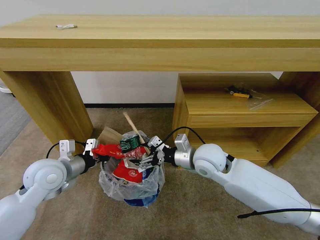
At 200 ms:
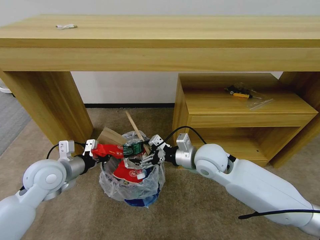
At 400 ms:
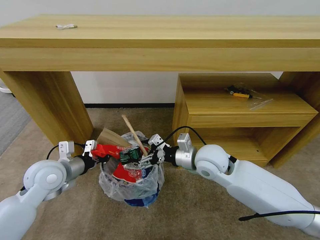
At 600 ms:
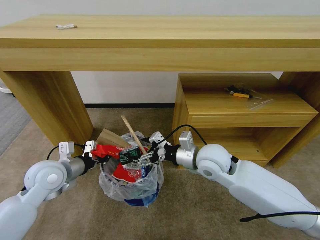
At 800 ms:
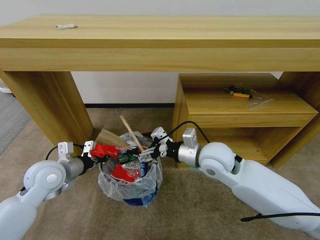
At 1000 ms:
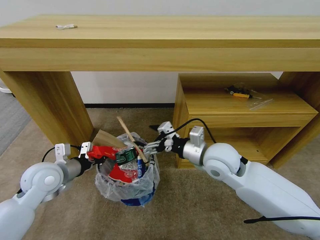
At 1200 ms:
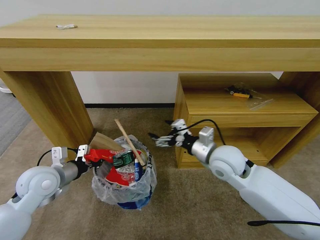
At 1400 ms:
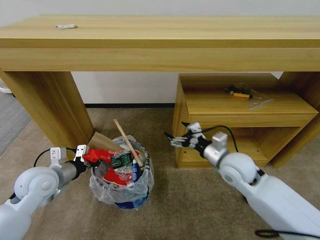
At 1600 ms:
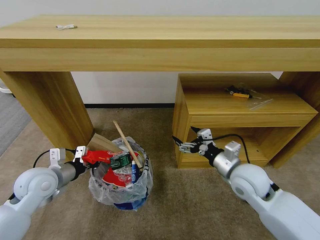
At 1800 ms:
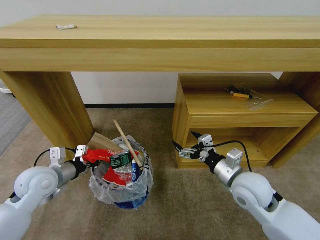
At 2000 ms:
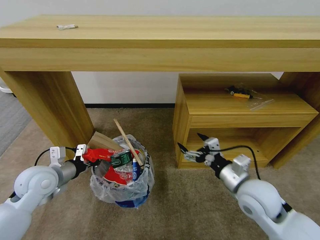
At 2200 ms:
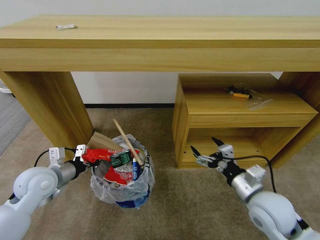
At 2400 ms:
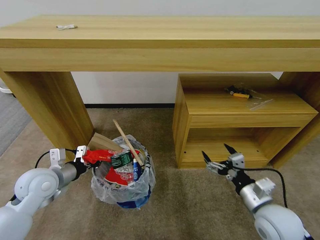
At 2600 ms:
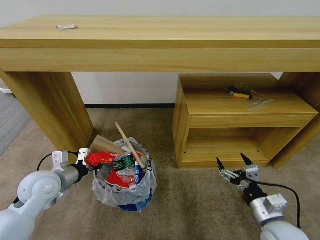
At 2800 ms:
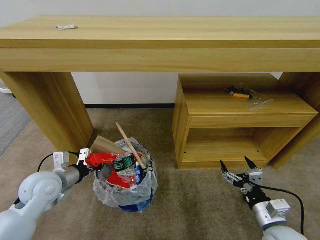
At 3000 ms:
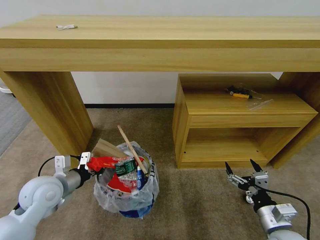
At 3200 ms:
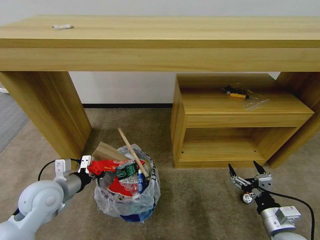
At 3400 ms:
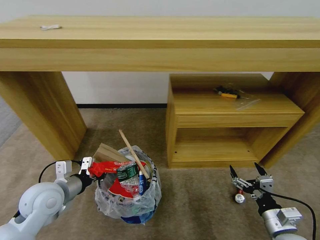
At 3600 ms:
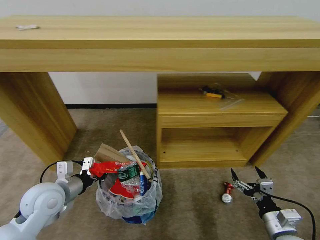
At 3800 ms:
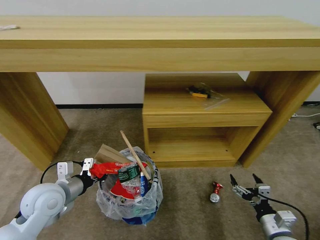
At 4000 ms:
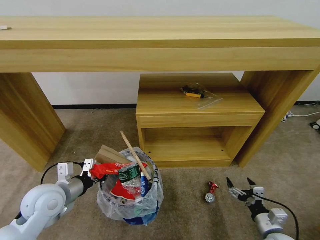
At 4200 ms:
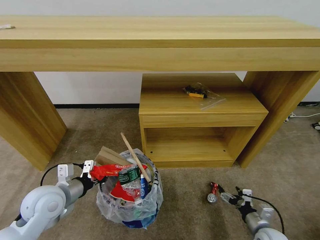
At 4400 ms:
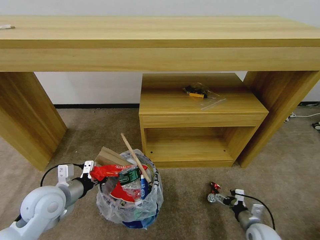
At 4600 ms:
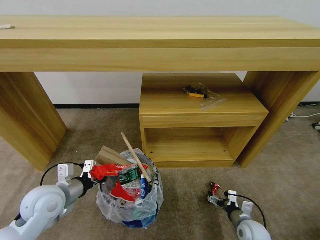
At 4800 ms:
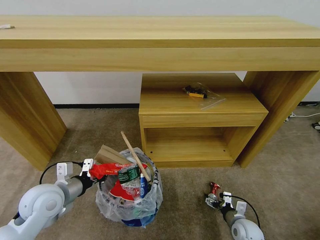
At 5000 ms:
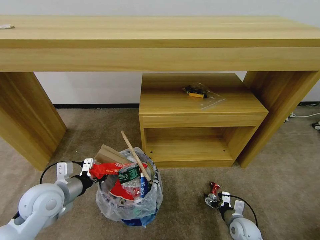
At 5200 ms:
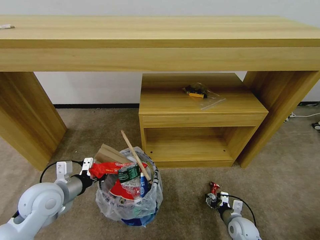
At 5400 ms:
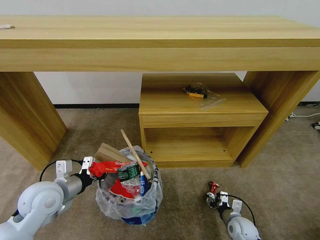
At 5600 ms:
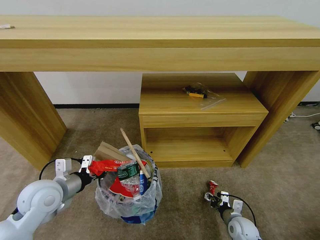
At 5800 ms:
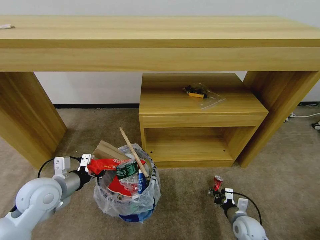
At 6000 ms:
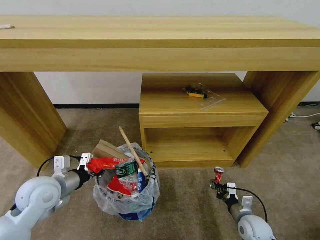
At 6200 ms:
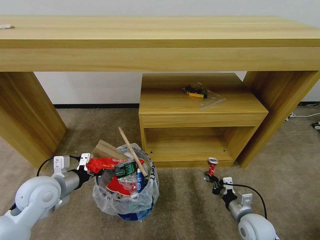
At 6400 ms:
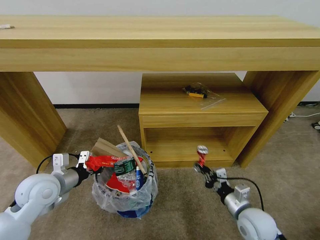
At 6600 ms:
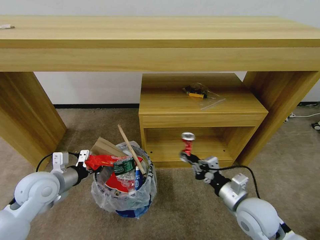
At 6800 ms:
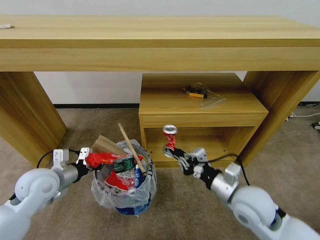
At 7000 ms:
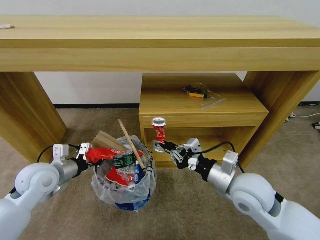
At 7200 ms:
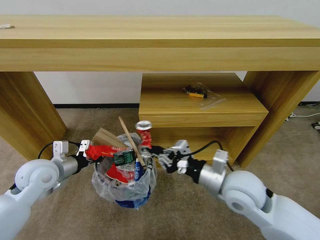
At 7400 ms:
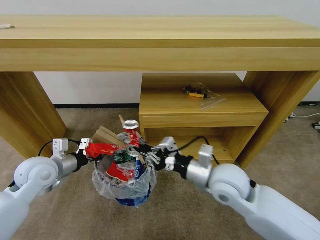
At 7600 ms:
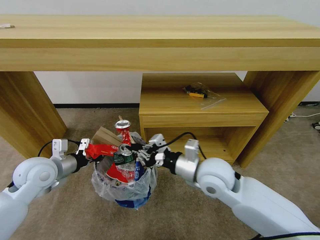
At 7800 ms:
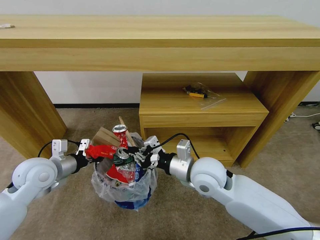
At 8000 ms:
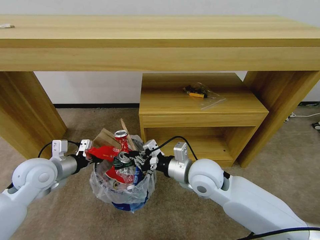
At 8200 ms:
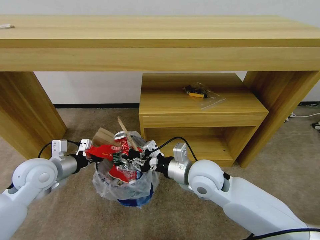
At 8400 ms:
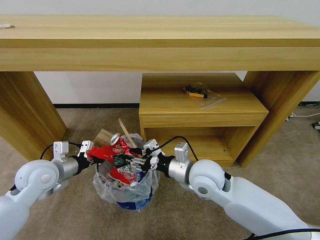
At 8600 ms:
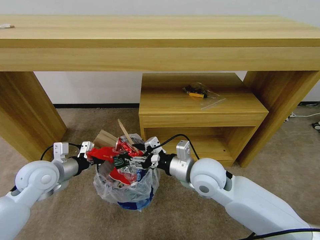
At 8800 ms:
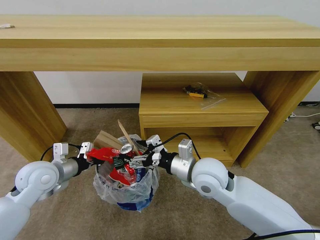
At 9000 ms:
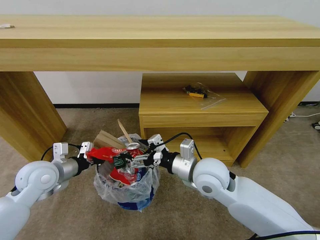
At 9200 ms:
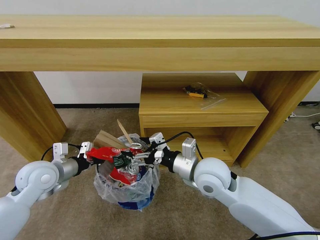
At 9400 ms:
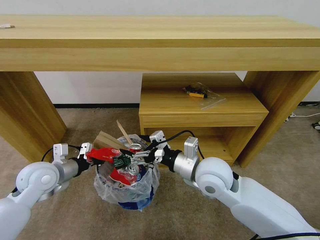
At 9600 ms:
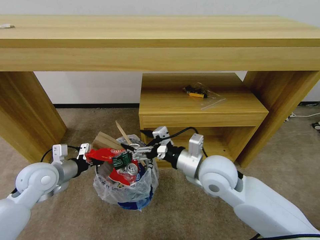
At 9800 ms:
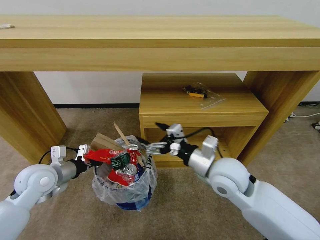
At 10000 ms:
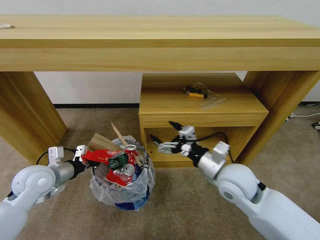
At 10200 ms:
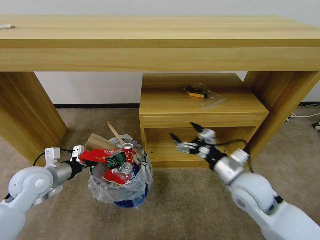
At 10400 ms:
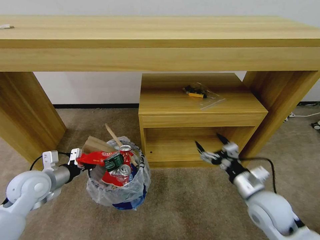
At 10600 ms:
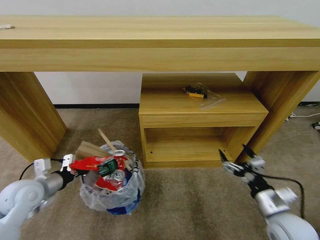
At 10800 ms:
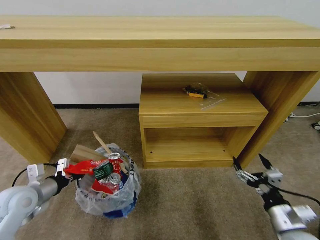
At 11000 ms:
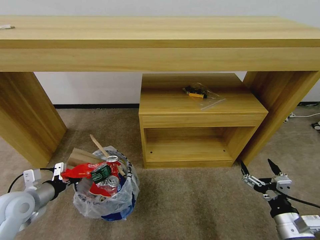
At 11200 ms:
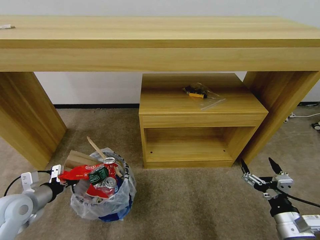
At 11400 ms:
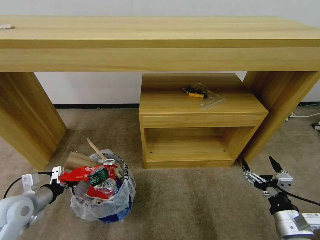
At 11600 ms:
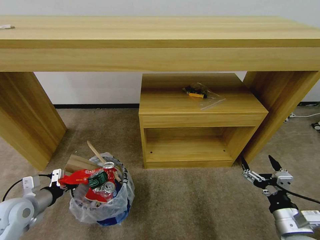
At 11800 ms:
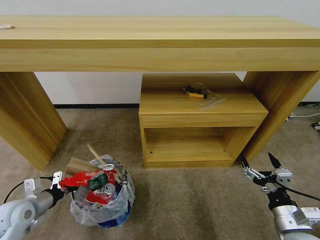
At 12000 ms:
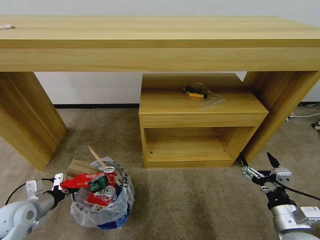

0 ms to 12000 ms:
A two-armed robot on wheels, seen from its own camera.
Task of the whole recording: Pick up the trash bin and place the garbage on the floor into it.
0 ms to 1600 ms: The right gripper shifts about 10 cm to the right and backward.
1600 ms to 3000 ms: The right gripper heads backward, downward and to the right, covering approximately 20 cm.
3000 ms to 4400 ms: The right gripper moves downward, roughly 15 cm.
4400 ms to 6000 ms: The right gripper closes its fingers.
6000 ms to 7600 ms: The right gripper goes approximately 30 cm upward and to the left. The left gripper shifts by roughly 5 cm.
7600 ms to 9000 ms: The right gripper opens its fingers.
9000 ms to 10400 ms: The right gripper travels to the right, downward and backward by some 20 cm.
10400 ms to 12000 ms: The right gripper shifts about 10 cm backward and to the right, while the left gripper moves downward, backward and to the left, about 10 cm.

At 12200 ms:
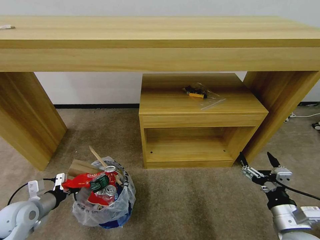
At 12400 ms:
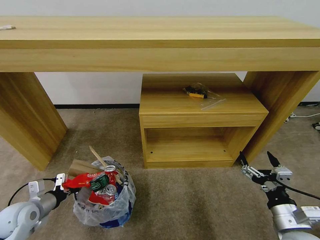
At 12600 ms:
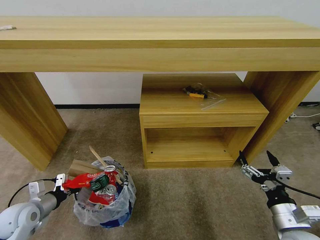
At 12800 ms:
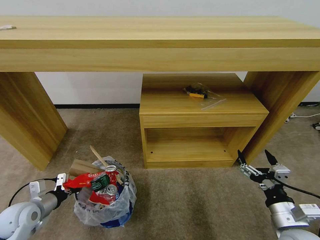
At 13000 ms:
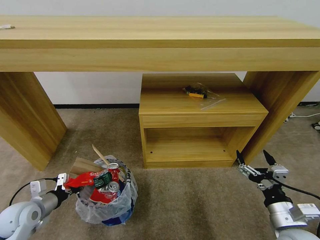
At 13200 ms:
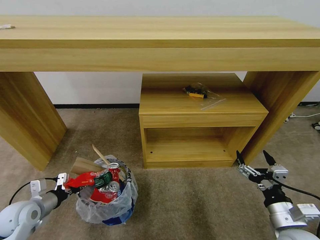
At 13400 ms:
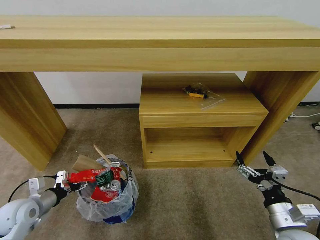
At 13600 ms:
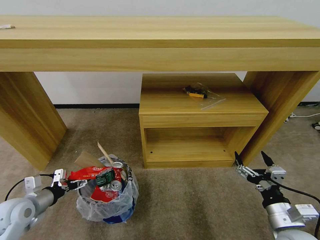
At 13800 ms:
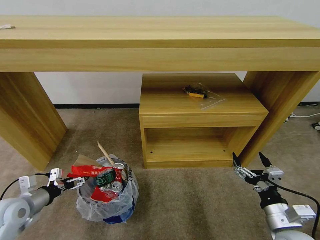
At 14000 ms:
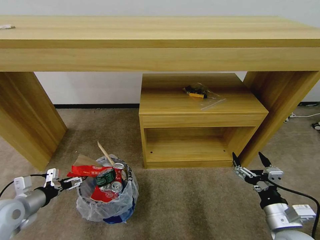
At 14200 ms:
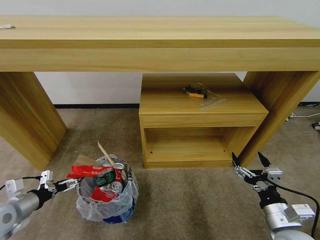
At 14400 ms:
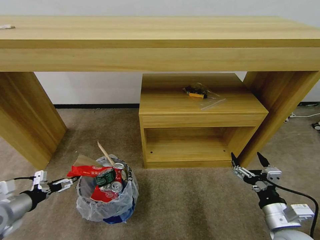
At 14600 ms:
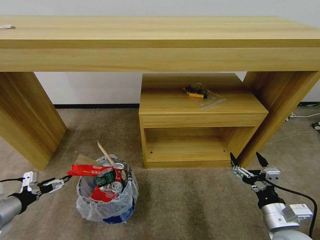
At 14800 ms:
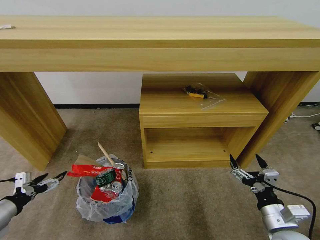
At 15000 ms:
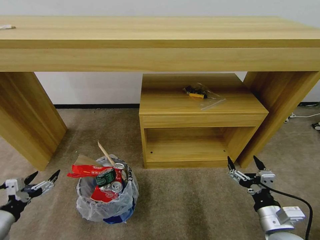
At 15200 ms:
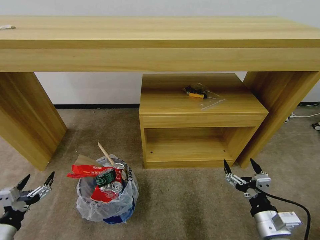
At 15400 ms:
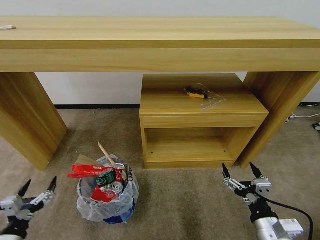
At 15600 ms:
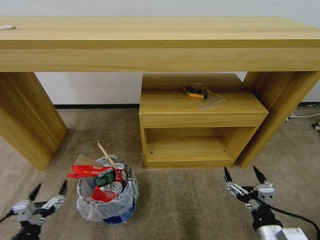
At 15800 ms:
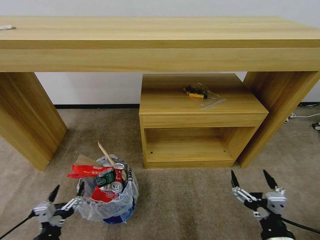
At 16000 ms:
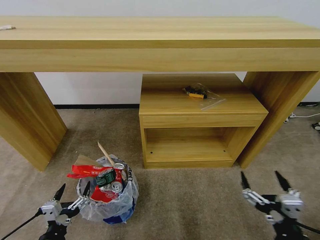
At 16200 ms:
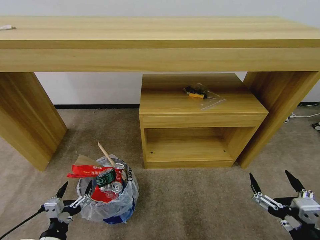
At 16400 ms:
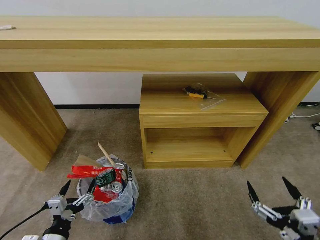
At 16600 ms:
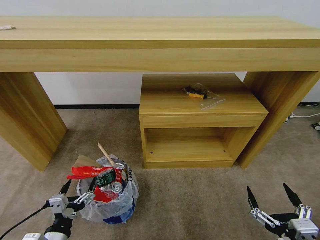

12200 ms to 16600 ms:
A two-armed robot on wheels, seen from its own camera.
Task of the whole recording: Pick up the trash bin and place the garbage on the floor into it.
12200 ms to 13600 ms: The left gripper opens its fingers.
13600 ms to 15200 ms: The left gripper shifts approximately 10 cm backward.
15200 ms to 16600 ms: The left gripper shifts roughly 15 cm to the right; the right gripper goes about 15 cm backward.
